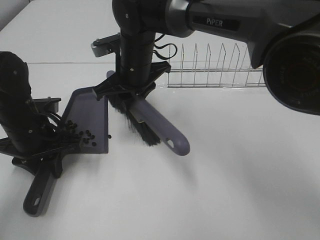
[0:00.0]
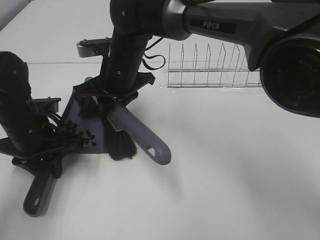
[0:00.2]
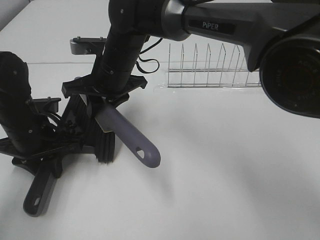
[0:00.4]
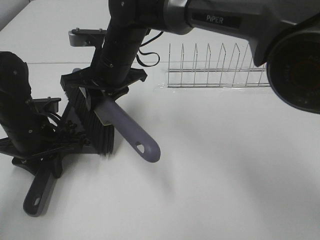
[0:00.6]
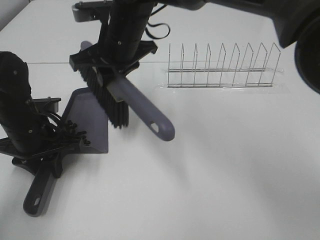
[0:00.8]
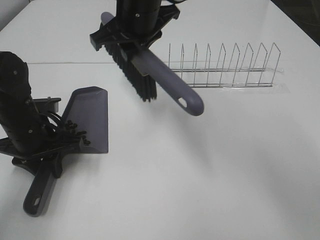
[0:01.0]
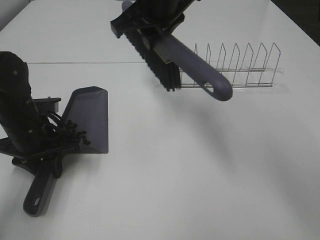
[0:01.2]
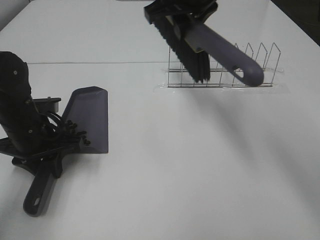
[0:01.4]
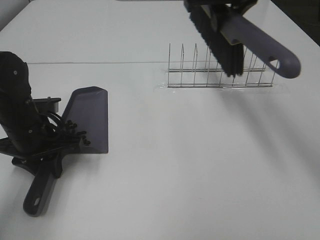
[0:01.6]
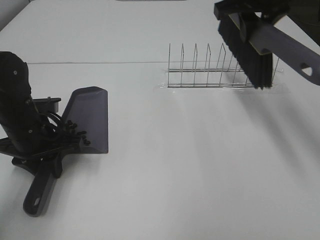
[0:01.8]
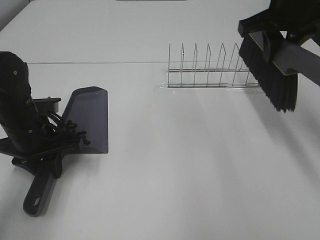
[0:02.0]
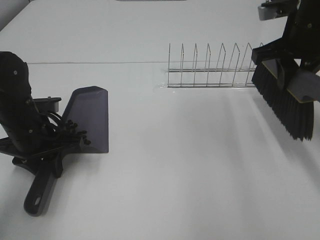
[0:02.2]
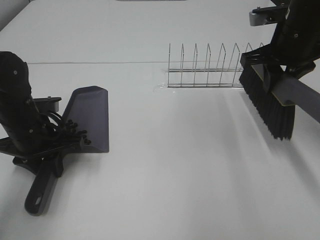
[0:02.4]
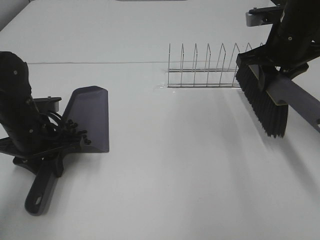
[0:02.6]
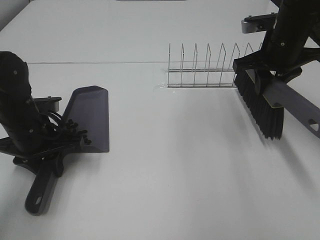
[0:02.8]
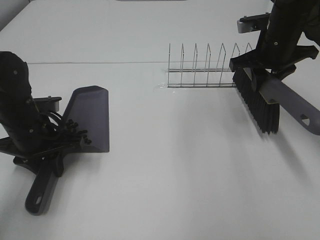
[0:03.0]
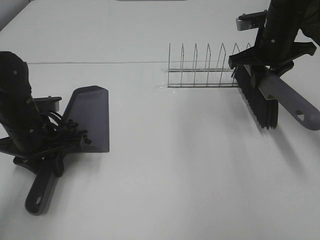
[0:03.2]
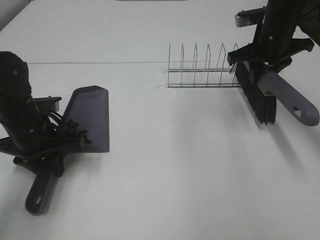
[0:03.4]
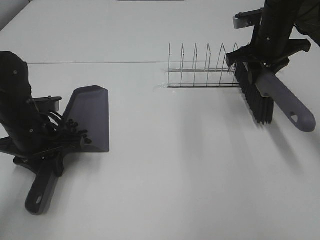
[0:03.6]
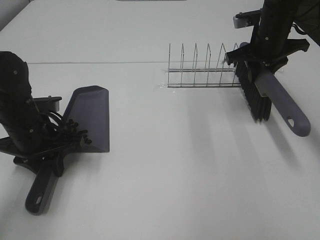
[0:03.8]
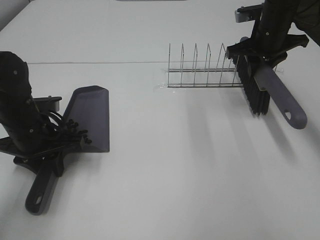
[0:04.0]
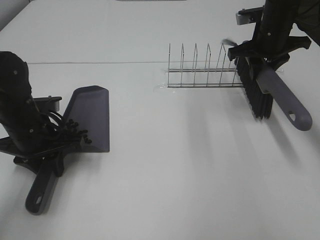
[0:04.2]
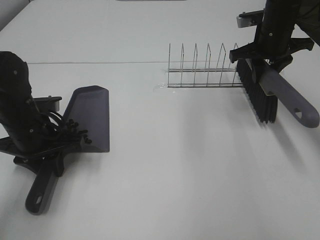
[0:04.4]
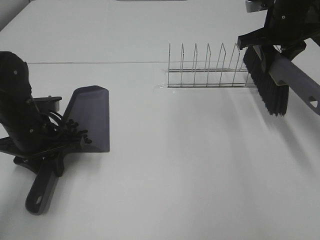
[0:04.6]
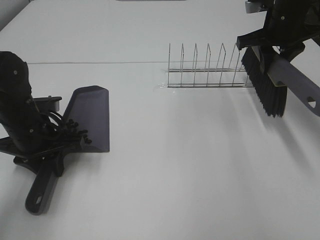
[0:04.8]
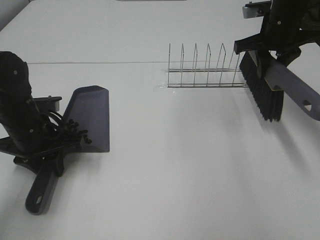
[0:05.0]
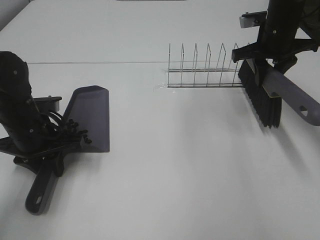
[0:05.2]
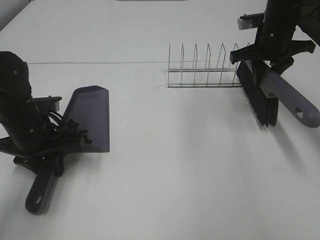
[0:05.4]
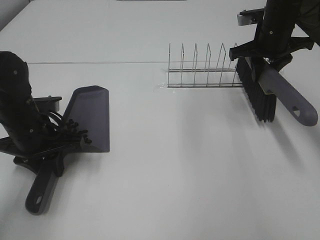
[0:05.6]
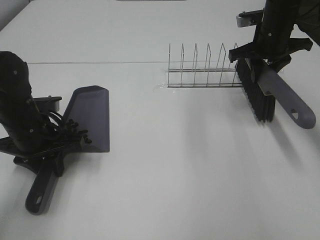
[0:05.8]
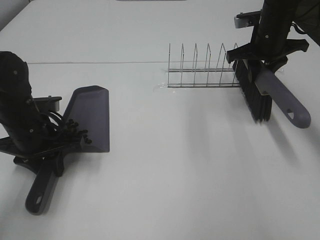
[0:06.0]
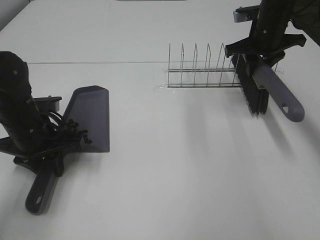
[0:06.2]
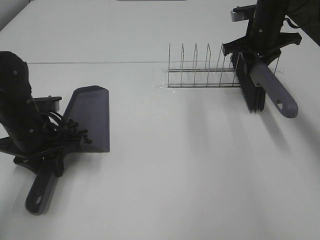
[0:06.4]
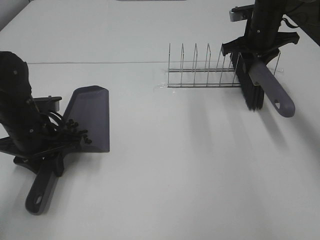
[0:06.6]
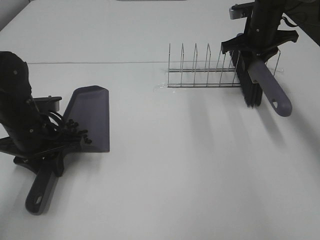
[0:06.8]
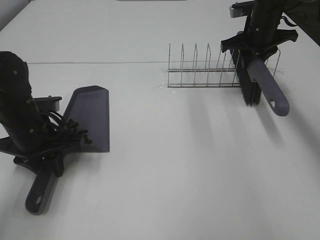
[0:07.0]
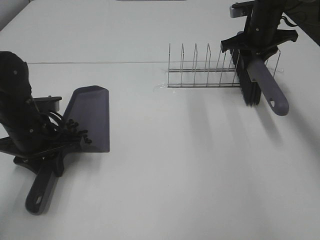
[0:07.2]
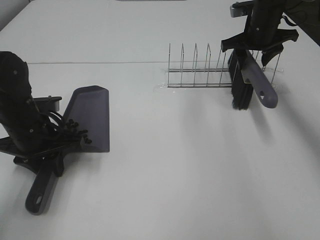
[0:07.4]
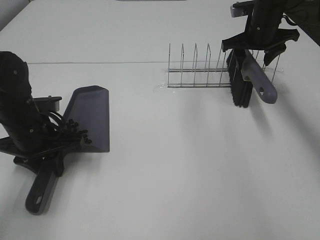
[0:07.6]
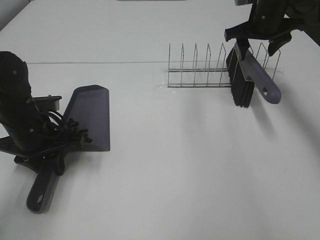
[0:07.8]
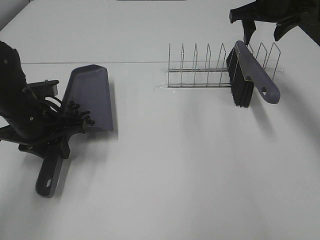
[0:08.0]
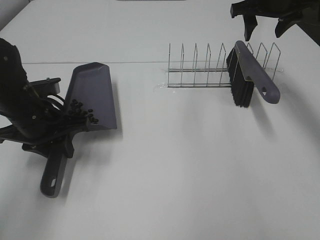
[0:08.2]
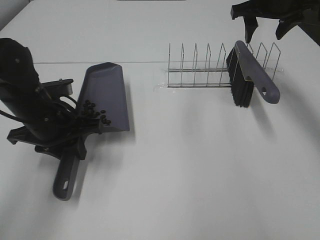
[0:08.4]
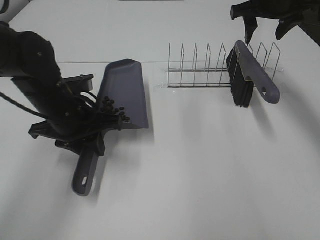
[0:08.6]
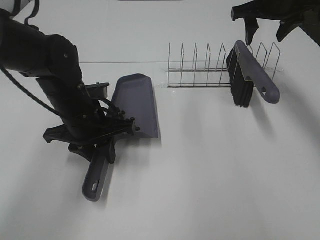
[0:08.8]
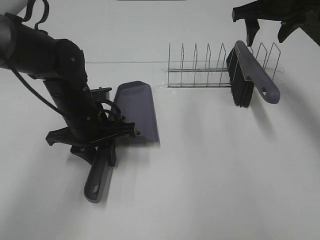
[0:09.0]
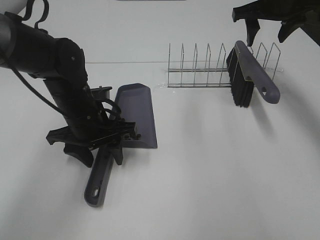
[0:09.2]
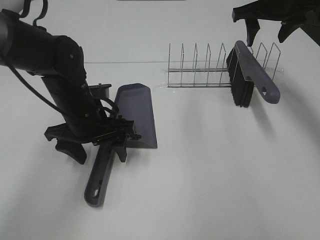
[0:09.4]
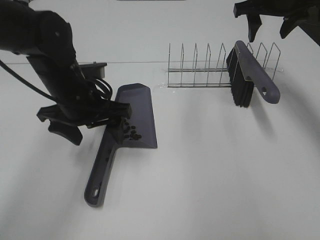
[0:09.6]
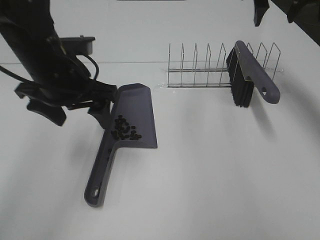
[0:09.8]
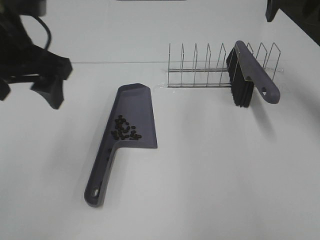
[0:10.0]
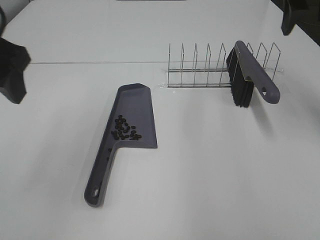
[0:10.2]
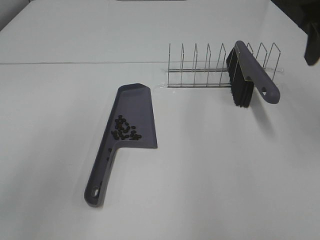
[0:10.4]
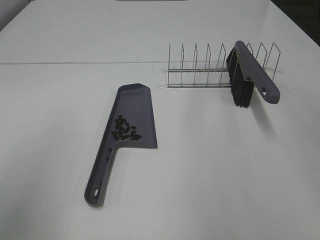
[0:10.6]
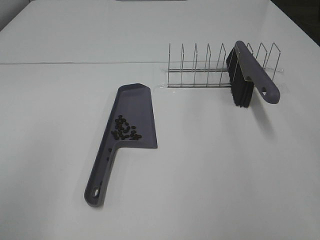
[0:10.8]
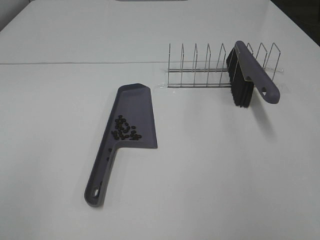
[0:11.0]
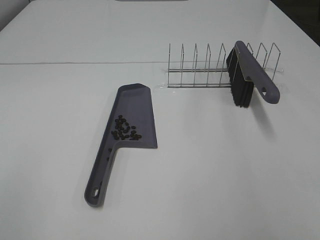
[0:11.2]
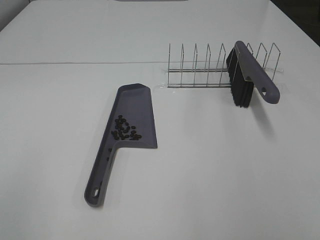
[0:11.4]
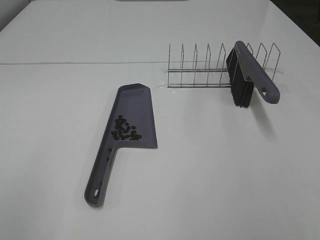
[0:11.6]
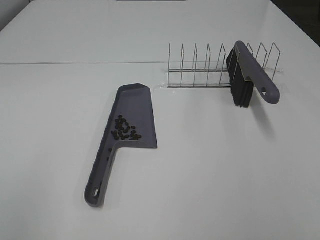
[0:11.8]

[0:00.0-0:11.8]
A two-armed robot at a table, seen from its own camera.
Task of the whole recording: Sweep Coffee Bean.
Step, 0:00.8 to 0:07.6: Right hand:place the broom on the rack.
Step, 0:07.8 to 0:09.2: Left hand:place the dustpan on the table.
0:00.0 to 0:01.4: The right gripper is displaced upward and to the right by roughly 20 cm.
0:01.4 to 0:03.0: The right gripper goes some 20 cm to the right and downward.
0:03.0 to 0:06.0: There are only small adjustments of the grippers.
0:06.0 to 0:07.4: The right gripper opens.
0:07.4 to 0:08.8: The right gripper moves upward, roughly 10 cm; the left gripper heads to the right, covering approximately 10 cm.
0:08.8 to 0:10.4: The right gripper is displaced backward by approximately 20 cm. The left gripper moves upward, backward and to the left, approximately 30 cm, and opens up.
0:10.4 to 0:11.8: The right gripper is displaced backward by some 30 cm. Meanwhile the left gripper heads backward, covering some 15 cm.

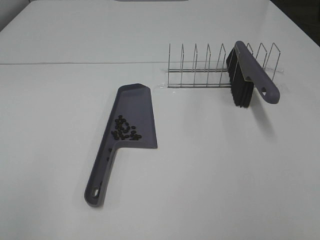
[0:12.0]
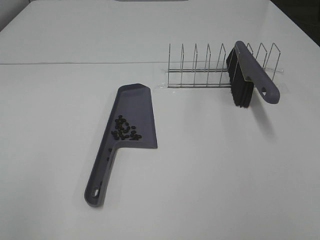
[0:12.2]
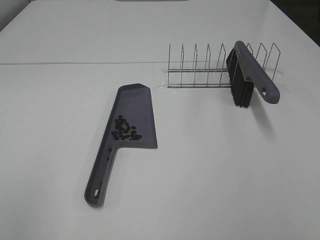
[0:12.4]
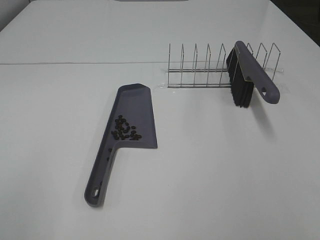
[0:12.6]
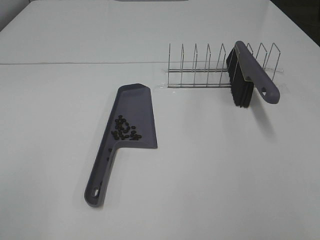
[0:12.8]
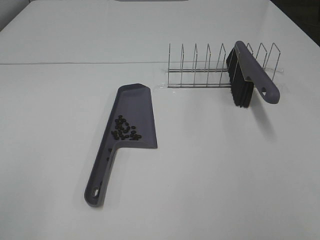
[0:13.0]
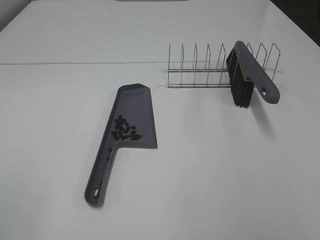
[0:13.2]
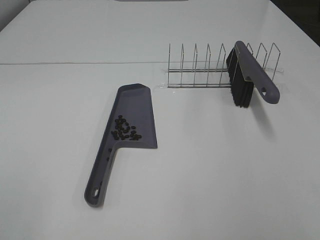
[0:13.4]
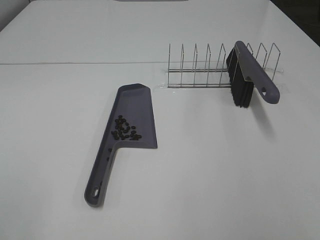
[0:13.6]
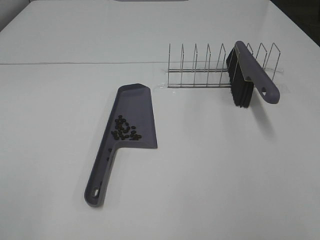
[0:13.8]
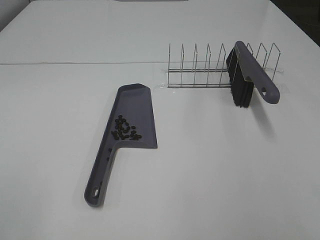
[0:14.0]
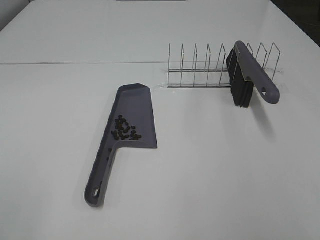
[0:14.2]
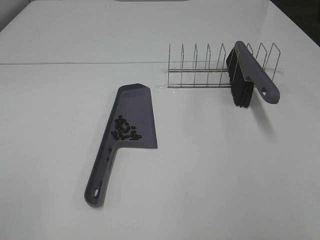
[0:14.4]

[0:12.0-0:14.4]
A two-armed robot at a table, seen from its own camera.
Task of the whole recording: Sweep Coffee Bean.
0:13.2 to 0:14.4: Both grippers stay put.
